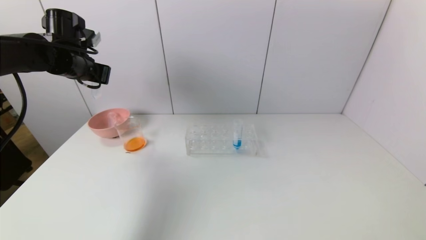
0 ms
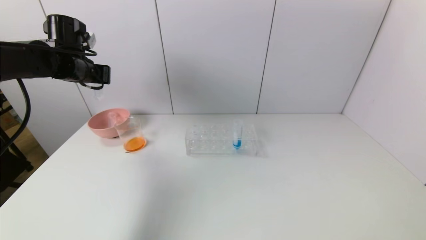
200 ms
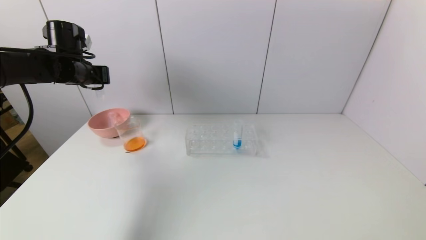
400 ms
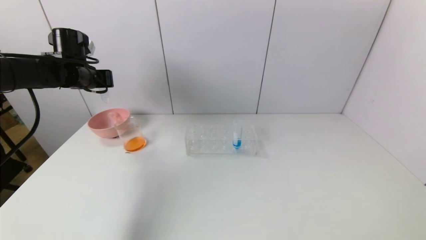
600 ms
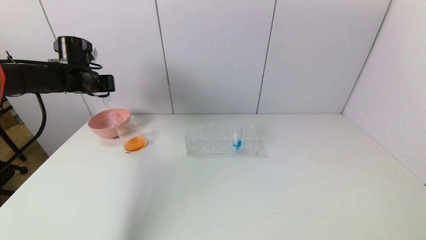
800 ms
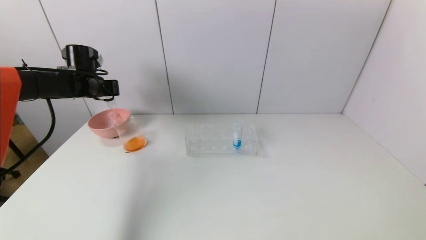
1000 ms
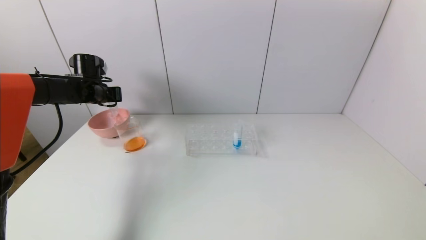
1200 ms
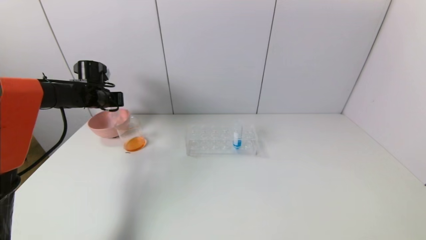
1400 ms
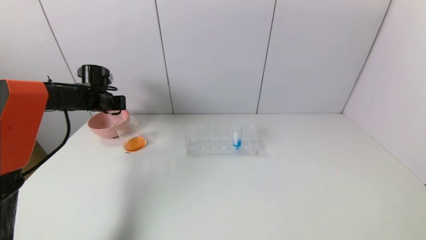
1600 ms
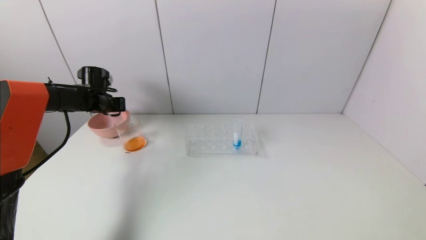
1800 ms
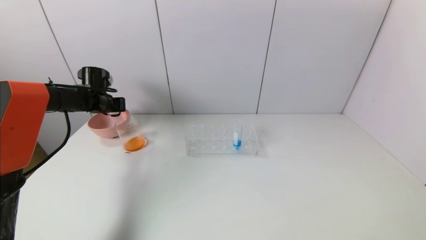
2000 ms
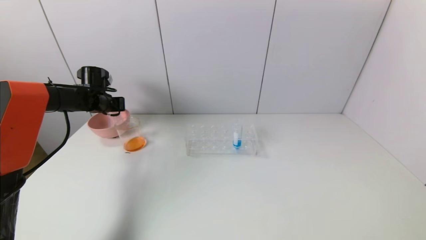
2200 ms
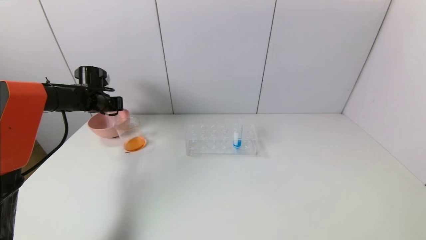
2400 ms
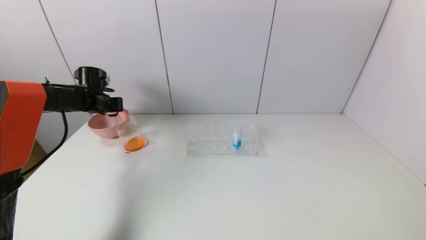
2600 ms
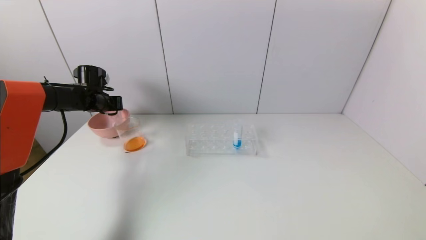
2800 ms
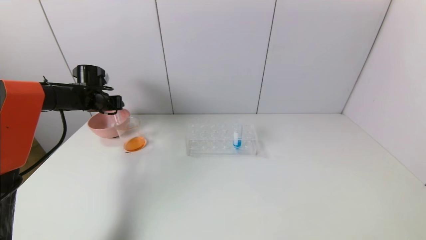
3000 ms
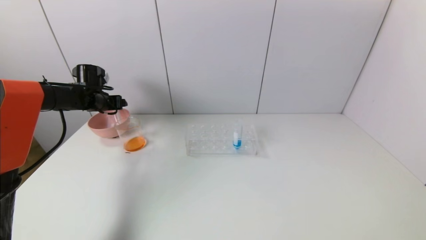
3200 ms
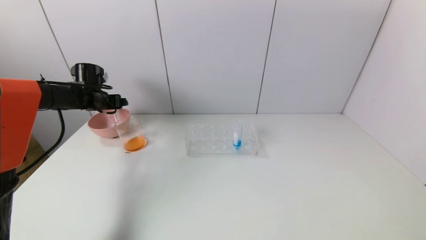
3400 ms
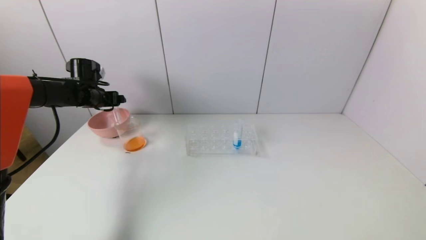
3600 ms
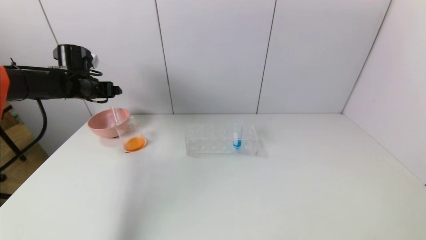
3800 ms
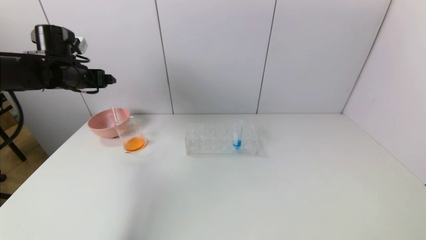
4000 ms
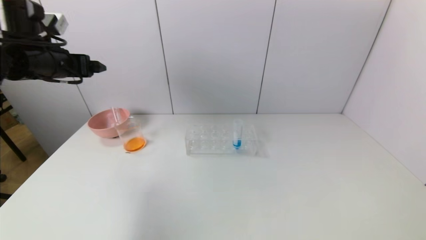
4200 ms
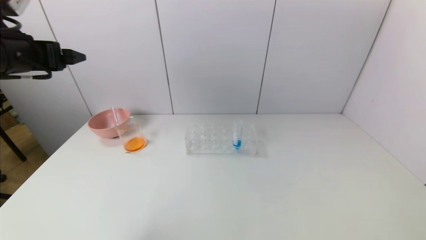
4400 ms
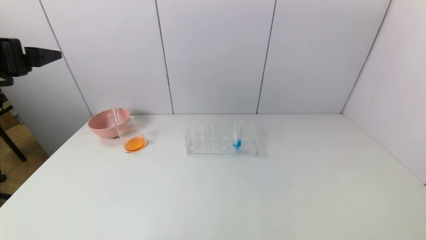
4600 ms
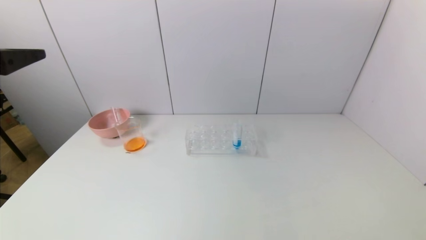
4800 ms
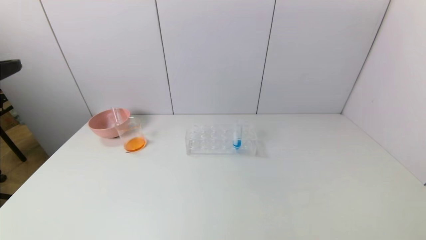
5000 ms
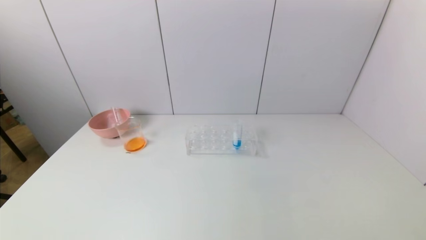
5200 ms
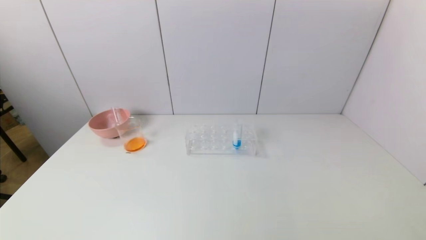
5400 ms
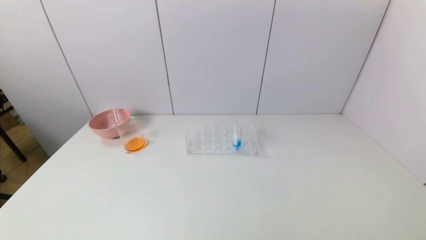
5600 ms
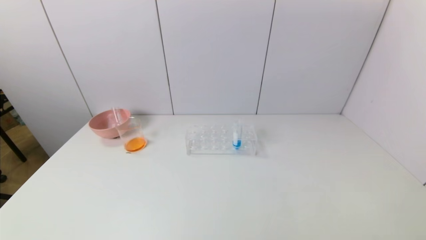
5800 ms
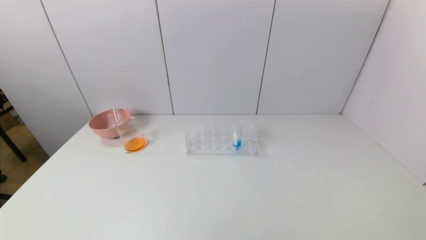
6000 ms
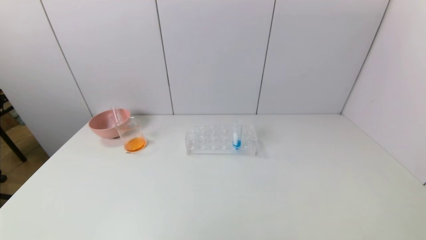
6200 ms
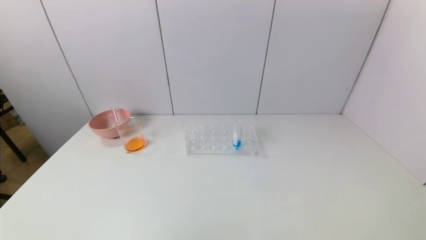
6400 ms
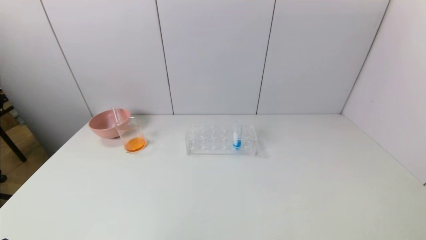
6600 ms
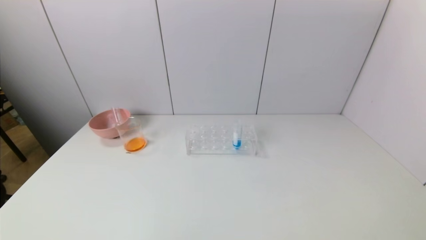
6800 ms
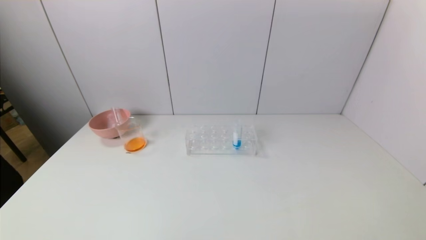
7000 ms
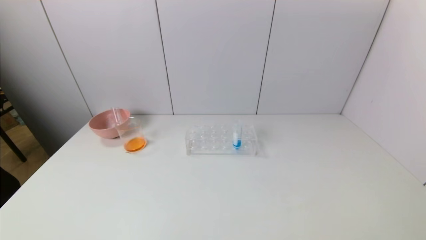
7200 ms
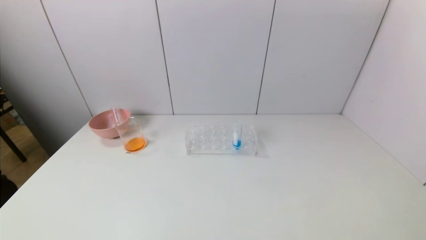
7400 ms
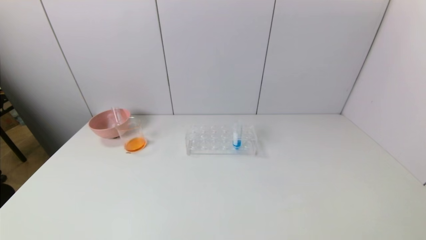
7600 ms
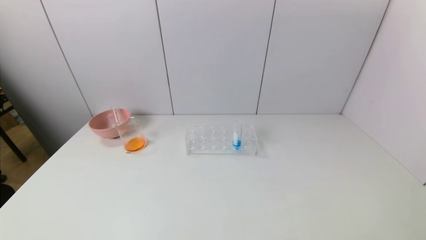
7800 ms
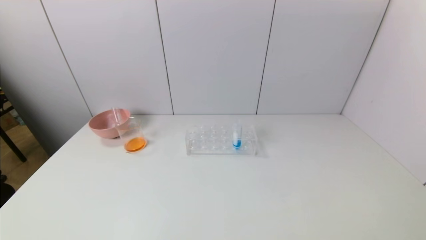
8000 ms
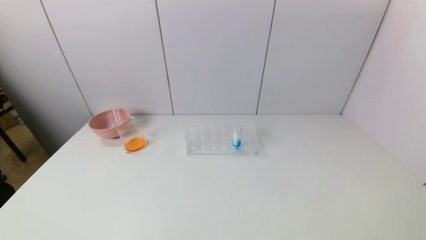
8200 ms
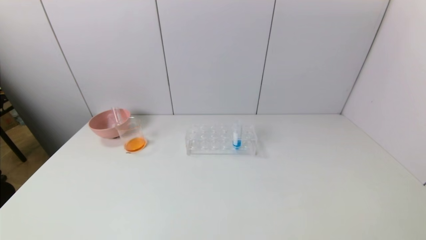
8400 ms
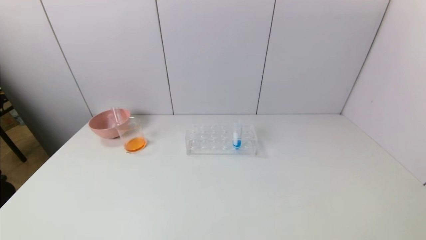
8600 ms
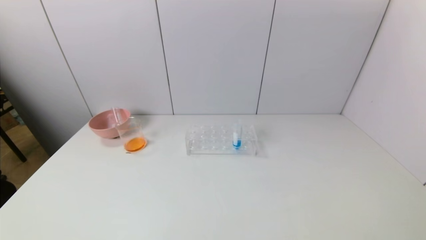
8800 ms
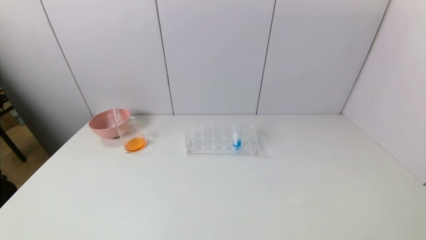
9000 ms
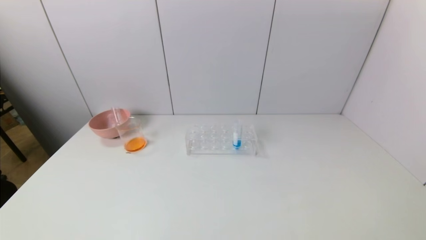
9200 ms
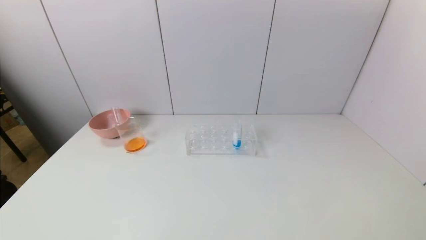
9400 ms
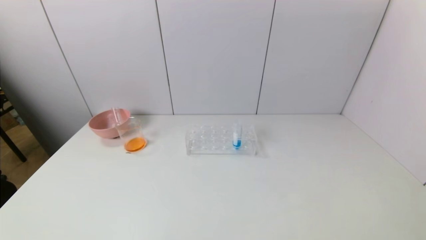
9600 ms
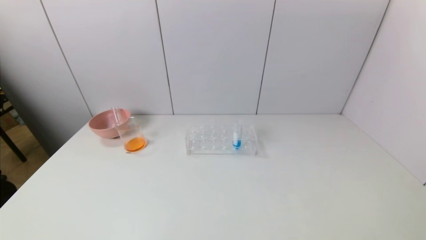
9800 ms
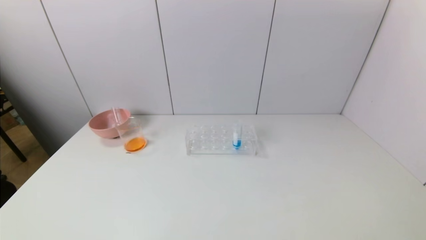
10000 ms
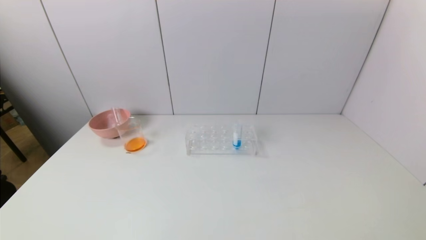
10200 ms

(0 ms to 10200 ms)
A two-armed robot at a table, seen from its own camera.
Task of the whole recording: pick up the test tube with yellow pigment and the test tube with red pigment by grippers and pour them into the beaker.
Step, 0 ms - 3000 ms: Place the test tube into the pink bowl with the left gripper.
0 ms - 1400 ms: The left gripper shifts approximately 15 cm downward and forward.
1400 ms - 3000 ms: The left gripper opens.
3000 ms - 4400 ms: The left gripper moves backward and upward, roughly 30 cm, and opens its fingers.
4400 ms - 5800 ms: The left gripper shifts some 30 cm backward.
5800 ms - 7200 ms: The left gripper shifts some 15 cm downward.
